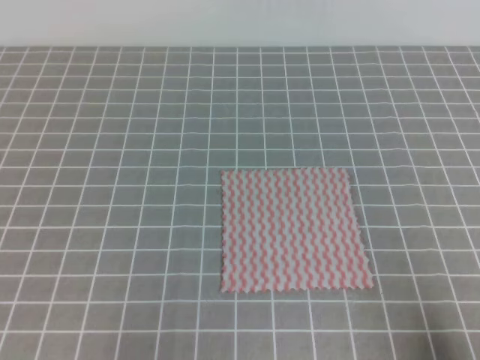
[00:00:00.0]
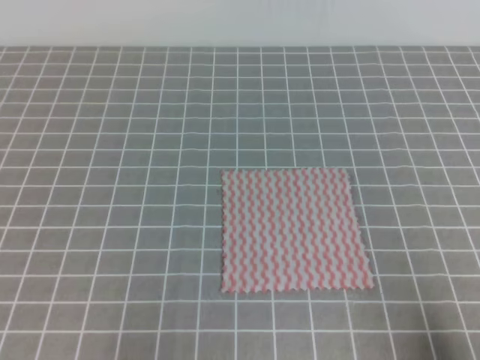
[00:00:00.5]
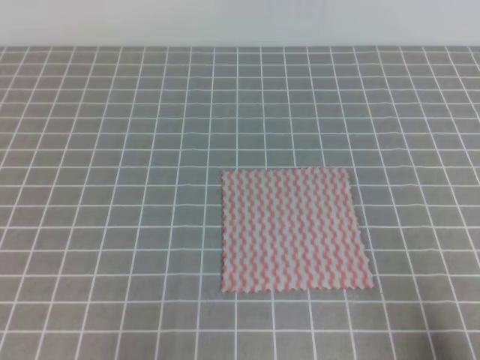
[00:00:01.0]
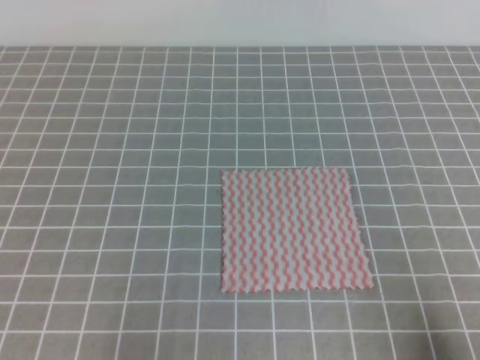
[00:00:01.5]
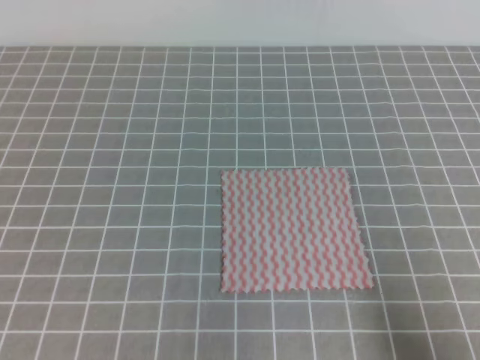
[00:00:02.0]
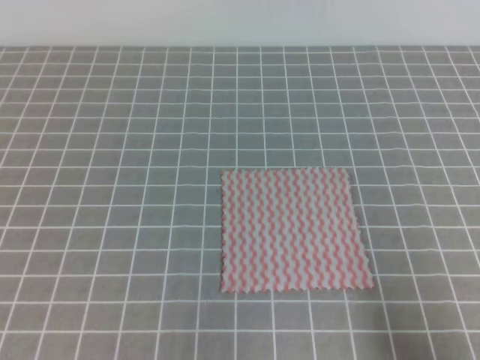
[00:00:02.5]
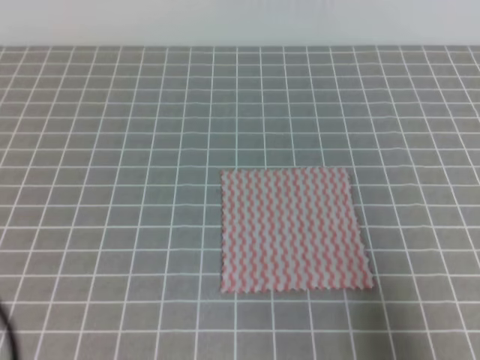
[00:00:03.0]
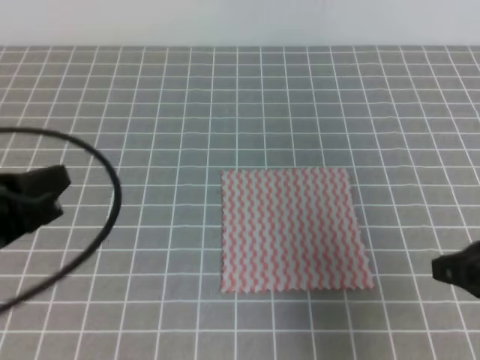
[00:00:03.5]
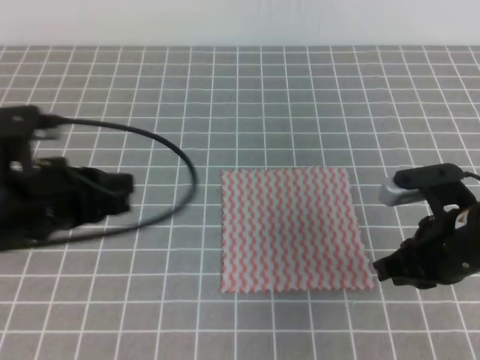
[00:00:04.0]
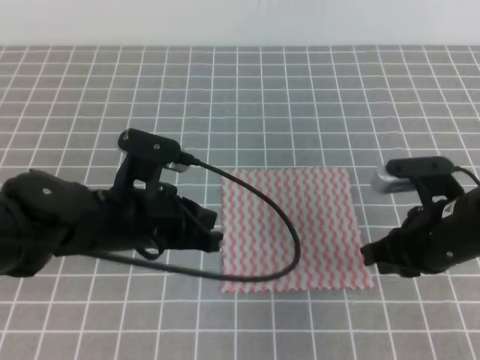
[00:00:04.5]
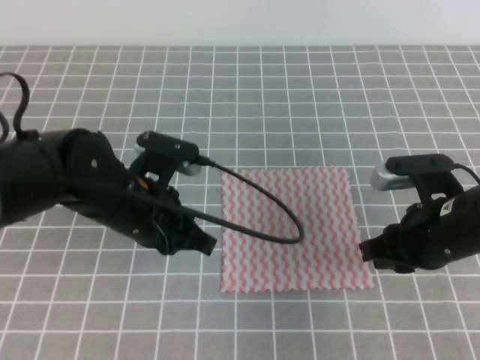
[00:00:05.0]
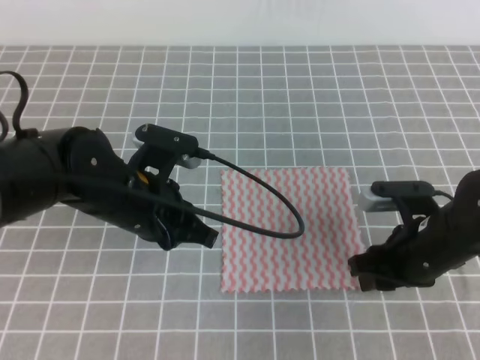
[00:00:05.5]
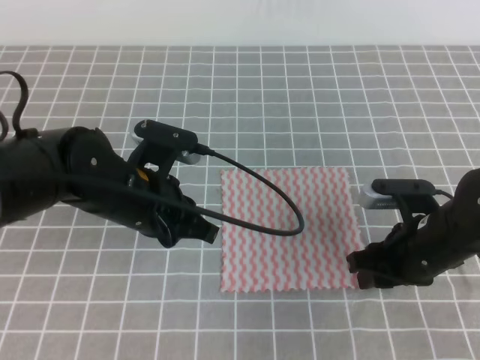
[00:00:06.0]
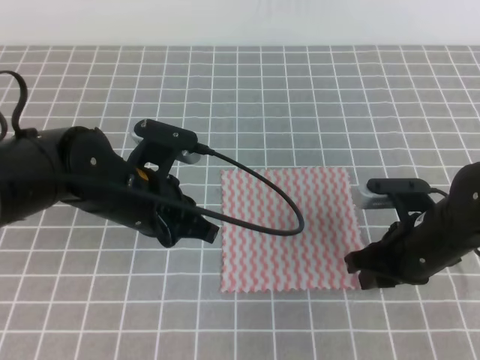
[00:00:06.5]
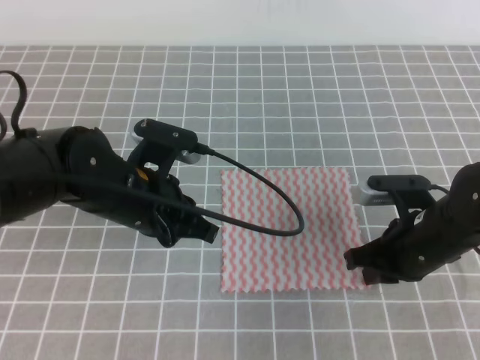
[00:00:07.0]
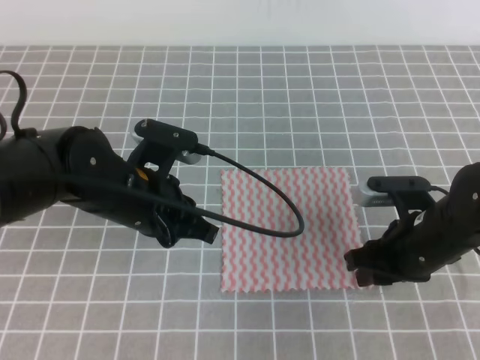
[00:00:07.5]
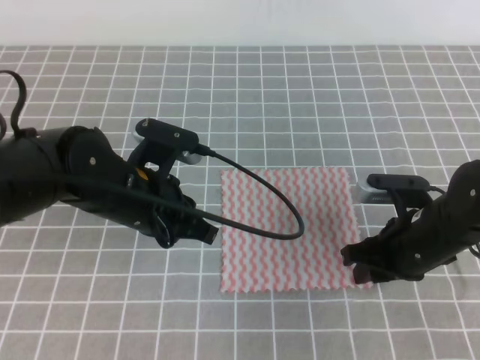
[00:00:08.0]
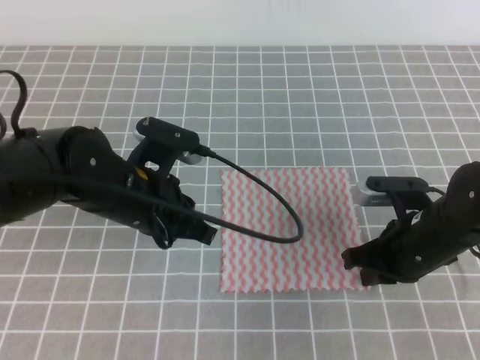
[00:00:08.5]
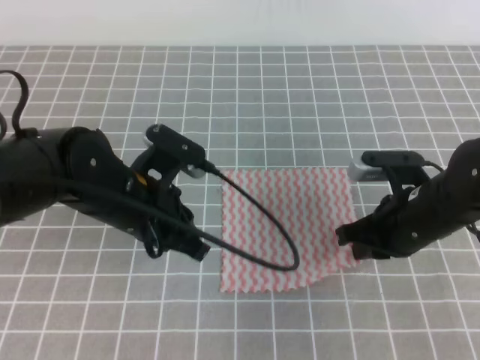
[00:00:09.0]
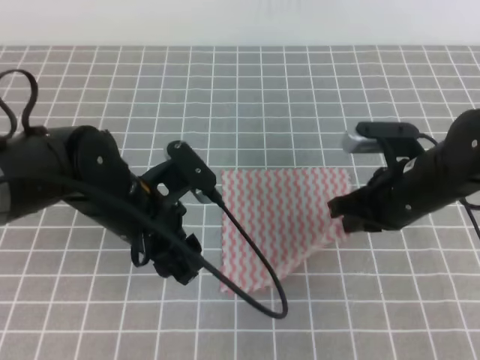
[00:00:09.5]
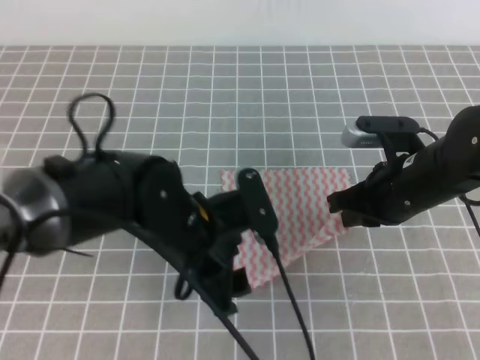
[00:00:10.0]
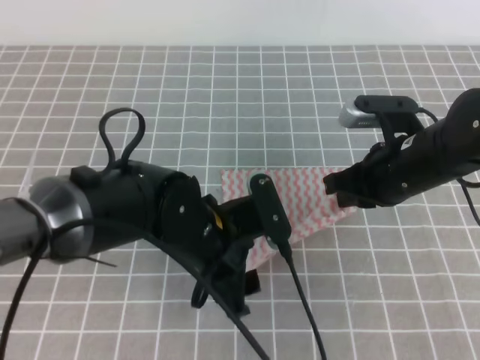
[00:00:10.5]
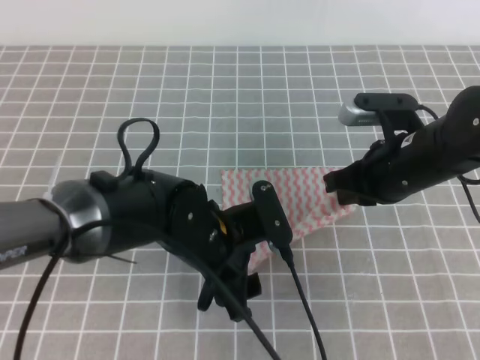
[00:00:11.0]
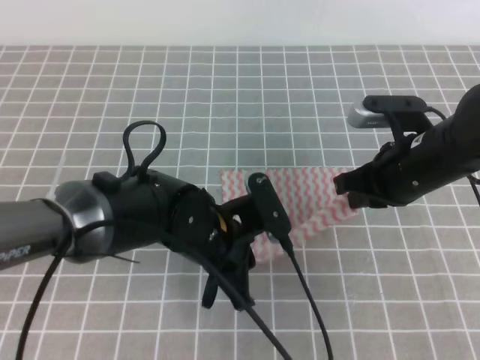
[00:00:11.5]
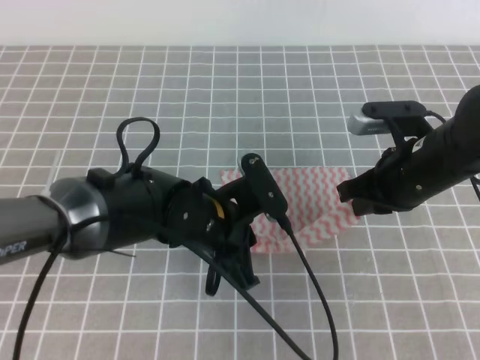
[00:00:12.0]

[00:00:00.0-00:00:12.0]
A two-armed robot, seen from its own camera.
Step, 00:00:00.0 to 00:00:11.0: Fold the towel upwards with the both gripper.
00:00:02.0 to 00:00:04.0: The right gripper goes some 20 cm forward and to the left; the left gripper goes approximately 20 cm forward and to the right.
00:00:04.0 to 00:00:06.0: The right gripper is displaced downward by some 5 cm, and opens its fingers, while the left gripper moves to the right, roughly 10 cm.
00:00:06.0 to 00:00:08.0: The right gripper closes, then reopens.
00:00:08.0 to 00:00:10.0: The left gripper shifts by roughly 5 cm, and opens up; the right gripper shifts about 5 cm upward, and closes its fingers.
00:00:10.0 to 00:00:12.0: The left gripper closes its fingers.

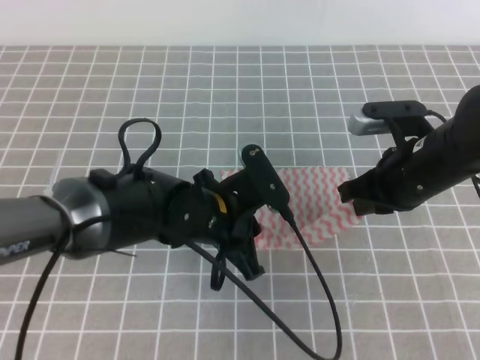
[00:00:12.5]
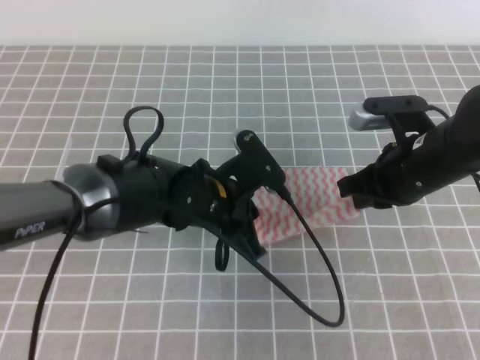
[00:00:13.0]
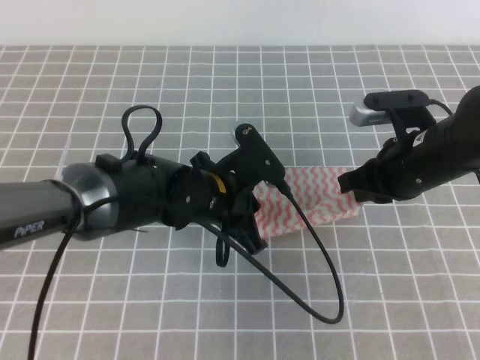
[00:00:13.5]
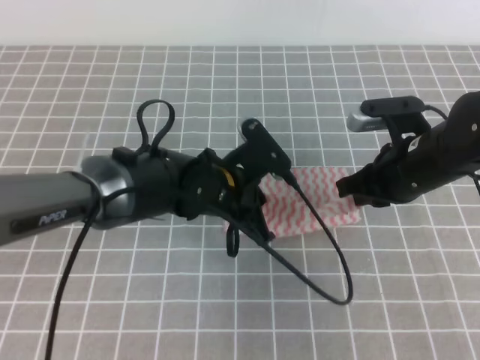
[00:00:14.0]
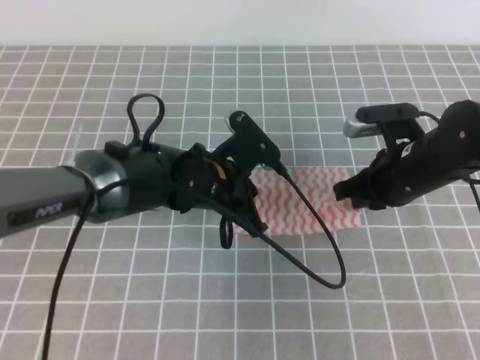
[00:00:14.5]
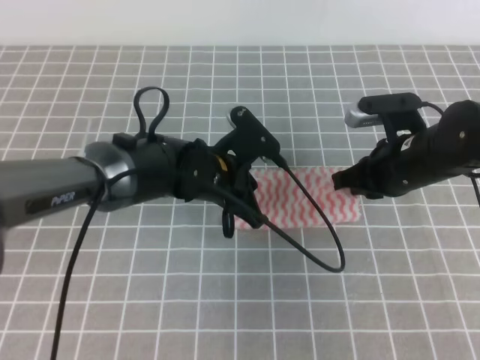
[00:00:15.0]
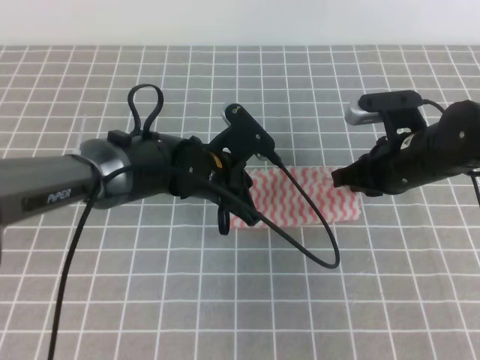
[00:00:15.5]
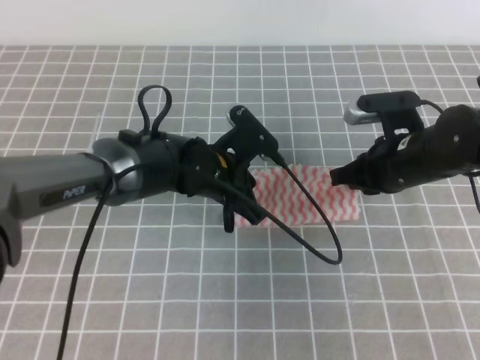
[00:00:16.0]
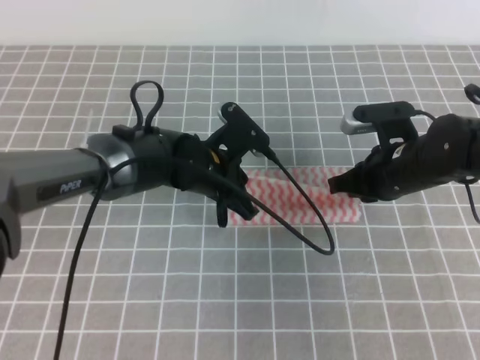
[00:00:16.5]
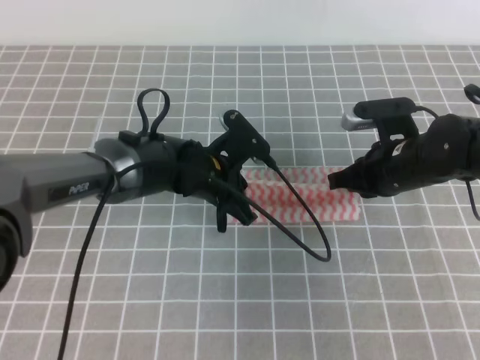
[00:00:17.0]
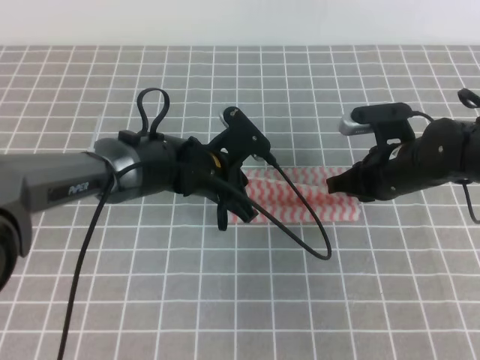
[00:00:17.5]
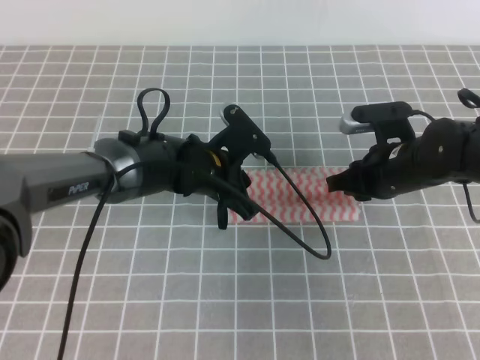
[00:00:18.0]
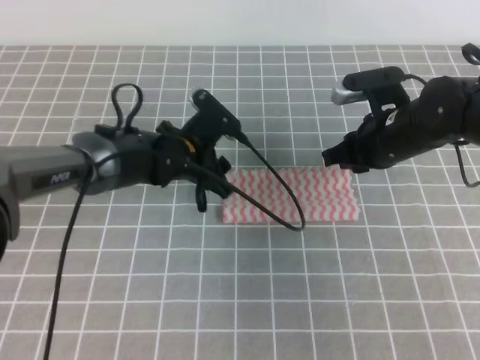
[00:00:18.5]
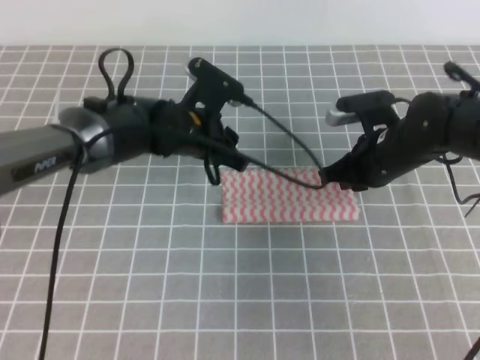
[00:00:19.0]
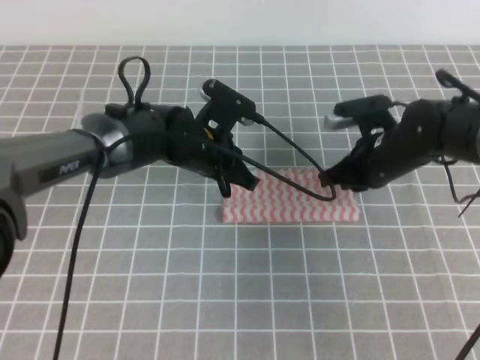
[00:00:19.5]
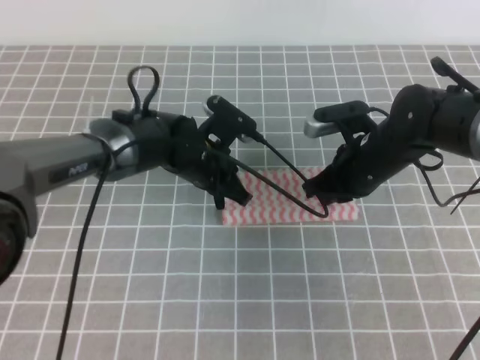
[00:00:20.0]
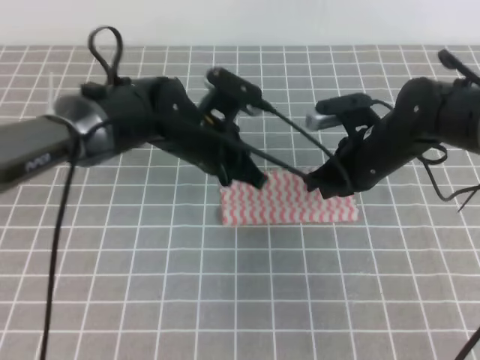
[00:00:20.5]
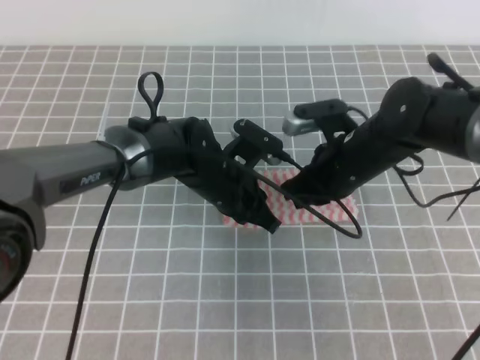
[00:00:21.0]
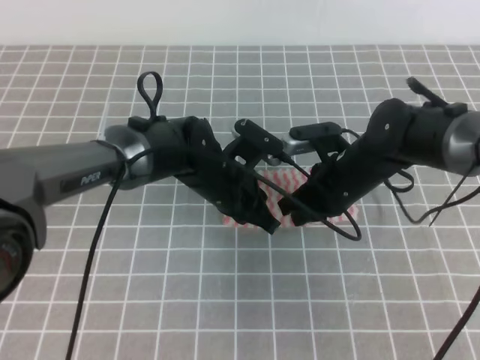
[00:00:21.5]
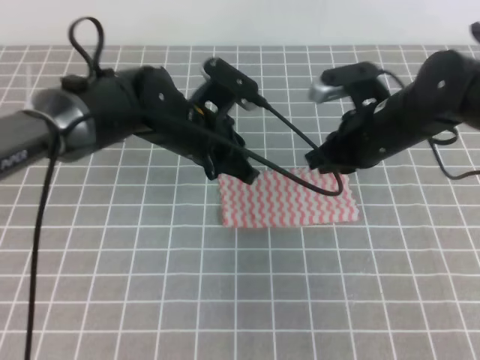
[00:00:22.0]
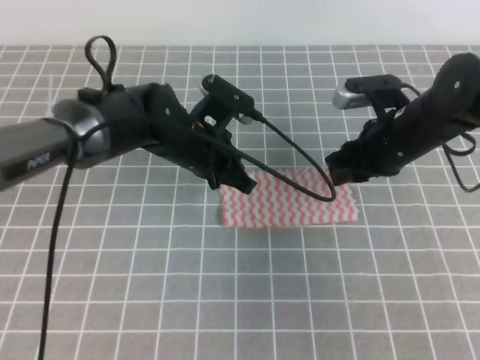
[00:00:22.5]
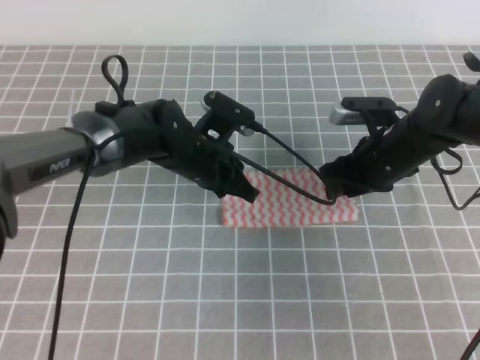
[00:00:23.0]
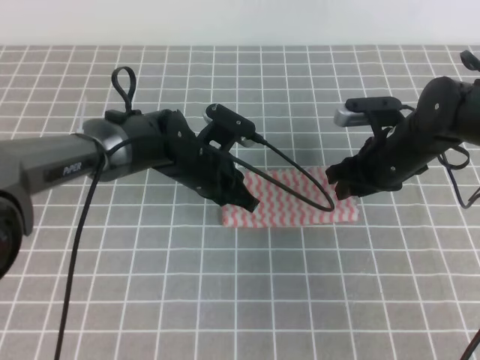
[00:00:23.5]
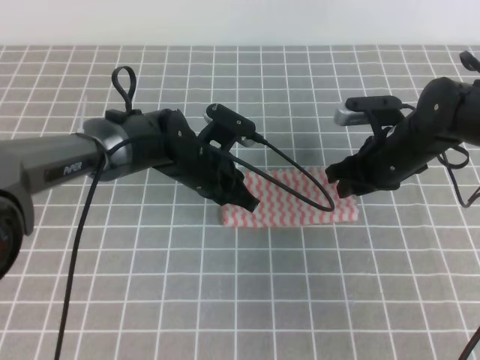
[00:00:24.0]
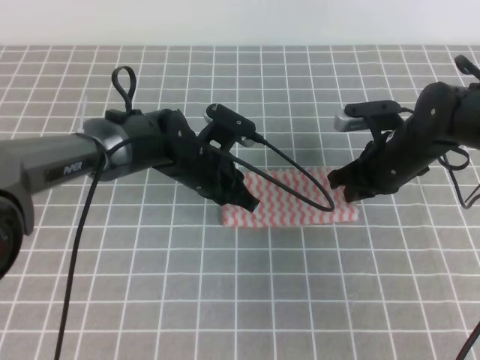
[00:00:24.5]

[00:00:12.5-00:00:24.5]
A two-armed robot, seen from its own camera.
Step, 00:00:13.5 to 00:00:17.5: Fold the towel from right to left with the right gripper.
Step, 00:00:18.0 to 00:00:18.5: Tidy up the towels.
00:00:14.5 to 00:00:16.5: The grippers make only small movements.
00:00:16.5 to 00:00:18.5: The right gripper opens up. The left gripper opens up.
00:00:18.5 to 00:00:20.5: The left gripper ends up approximately 5 cm from where it was, and closes its fingers. The right gripper closes.
00:00:20.5 to 00:00:22.5: The right gripper opens its fingers.
00:00:22.5 to 00:00:24.5: The left gripper goes about 5 cm downward, while the right gripper opens and closes again.

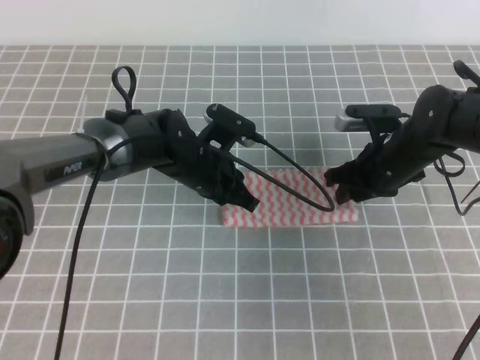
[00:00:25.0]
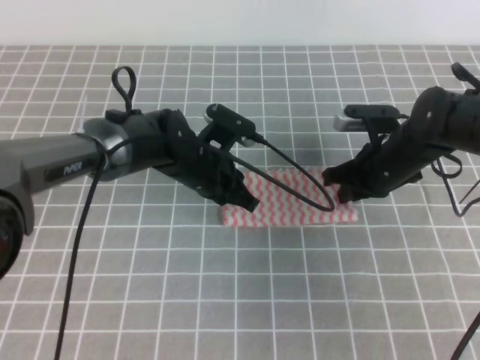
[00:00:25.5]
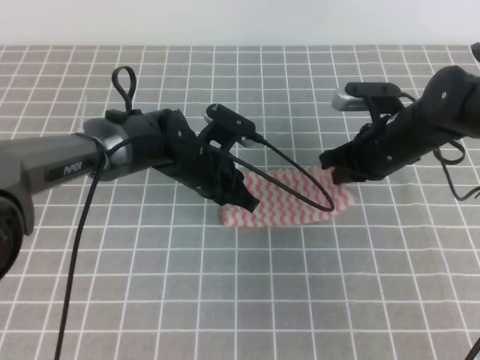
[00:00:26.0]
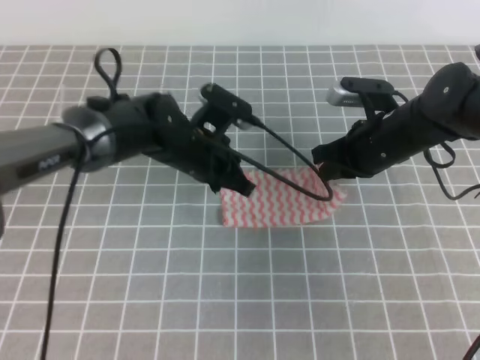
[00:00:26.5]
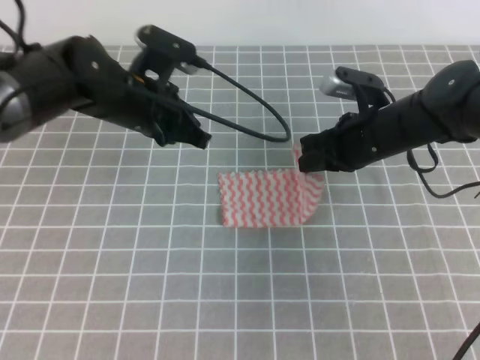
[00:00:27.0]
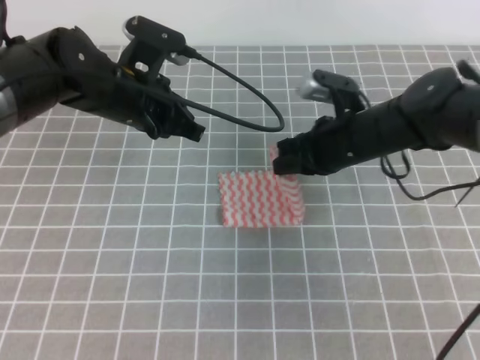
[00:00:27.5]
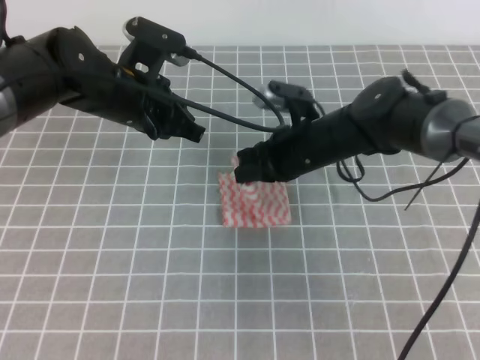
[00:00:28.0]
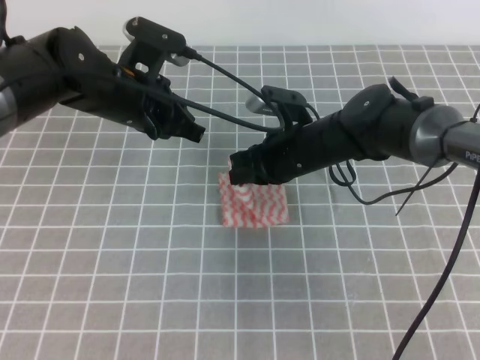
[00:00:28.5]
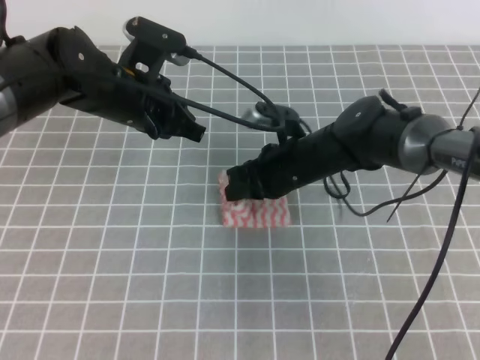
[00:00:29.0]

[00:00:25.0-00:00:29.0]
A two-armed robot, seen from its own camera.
00:00:25.0 to 00:00:27.0: The left gripper moves upward and to the left, some 10 cm. The right gripper changes place by approximately 5 cm, and closes.
00:00:27.0 to 00:00:29.0: The right gripper is displaced to the left by some 10 cm.
